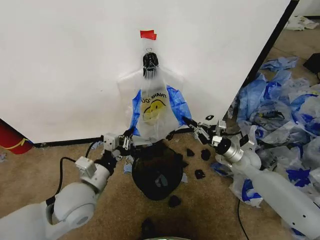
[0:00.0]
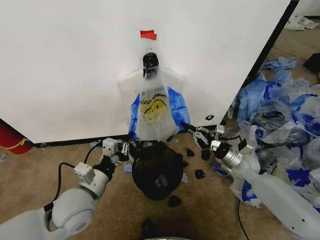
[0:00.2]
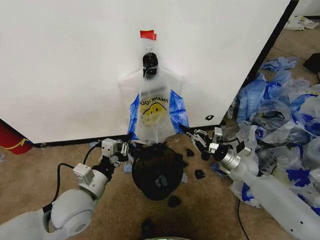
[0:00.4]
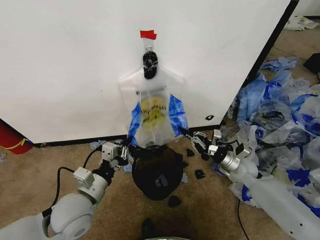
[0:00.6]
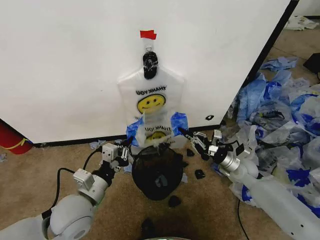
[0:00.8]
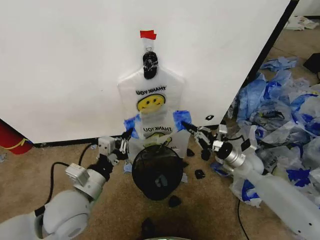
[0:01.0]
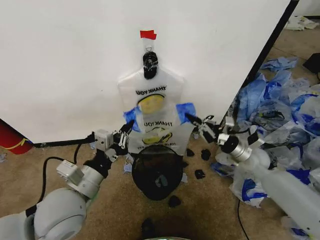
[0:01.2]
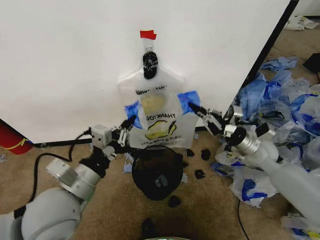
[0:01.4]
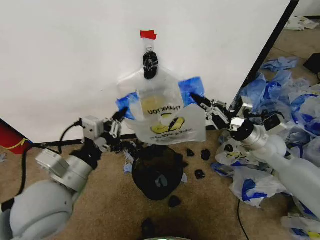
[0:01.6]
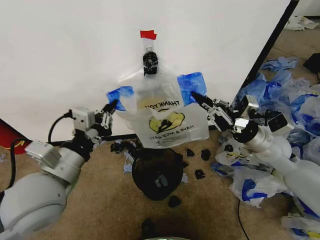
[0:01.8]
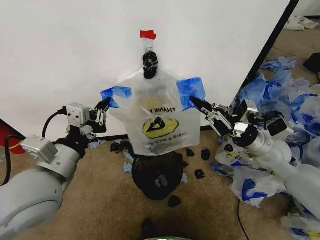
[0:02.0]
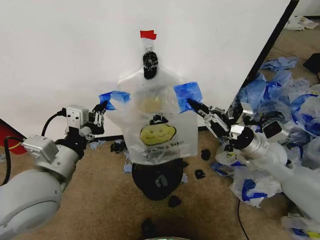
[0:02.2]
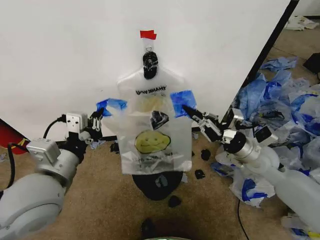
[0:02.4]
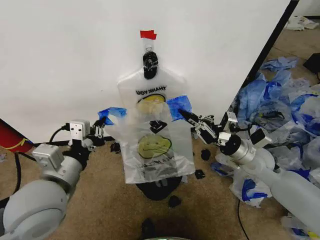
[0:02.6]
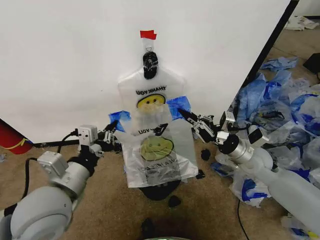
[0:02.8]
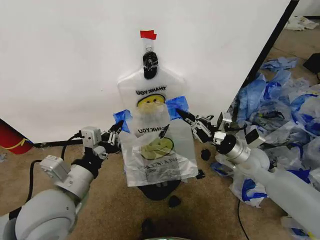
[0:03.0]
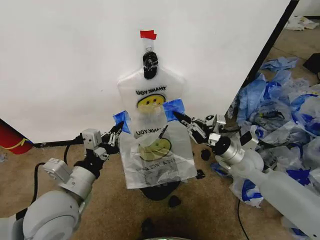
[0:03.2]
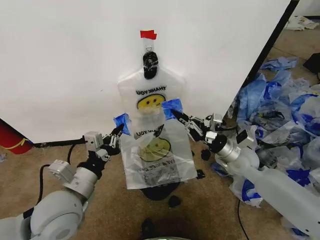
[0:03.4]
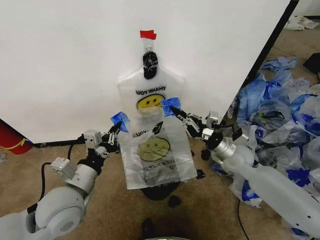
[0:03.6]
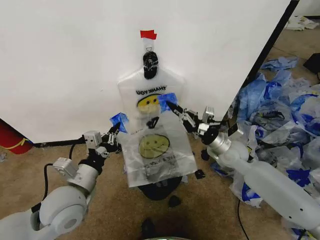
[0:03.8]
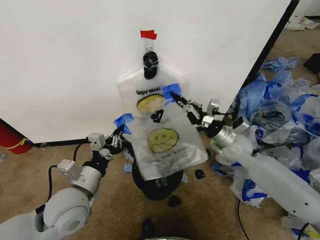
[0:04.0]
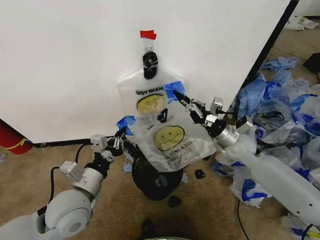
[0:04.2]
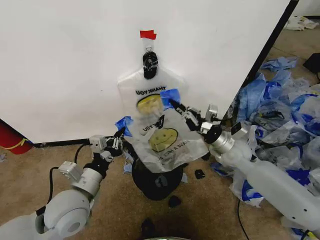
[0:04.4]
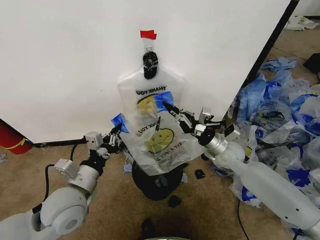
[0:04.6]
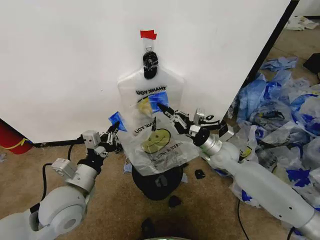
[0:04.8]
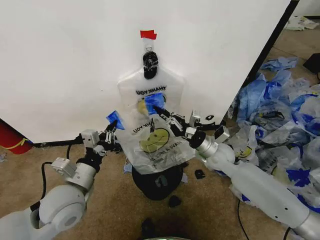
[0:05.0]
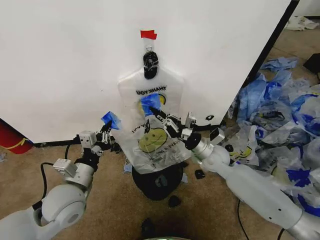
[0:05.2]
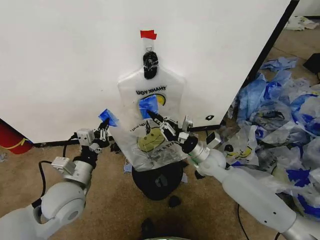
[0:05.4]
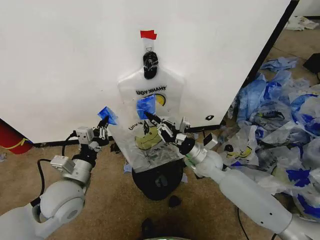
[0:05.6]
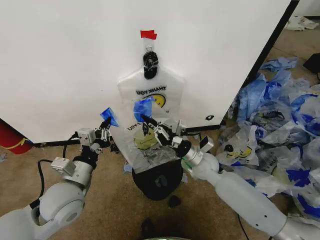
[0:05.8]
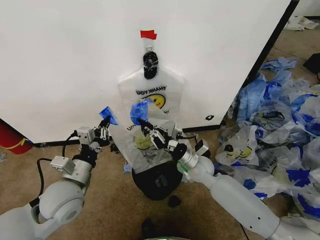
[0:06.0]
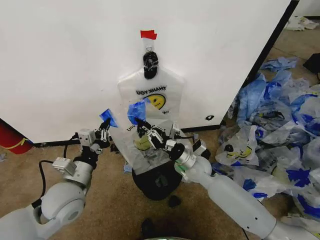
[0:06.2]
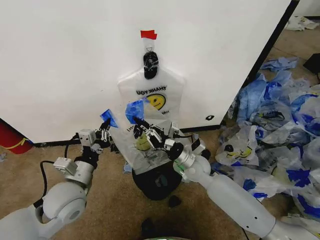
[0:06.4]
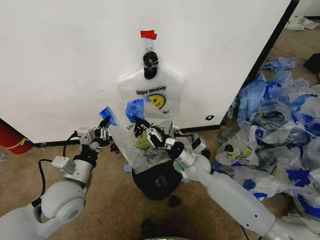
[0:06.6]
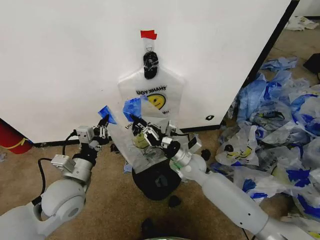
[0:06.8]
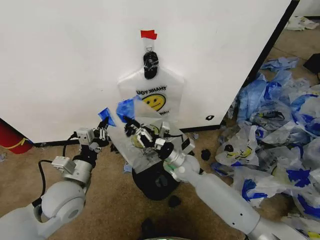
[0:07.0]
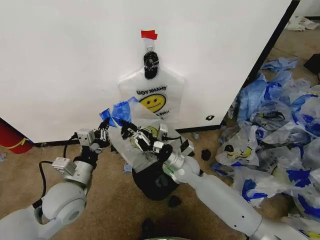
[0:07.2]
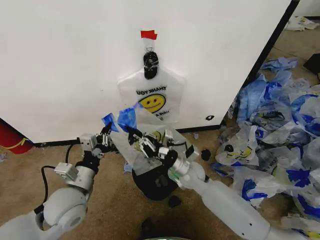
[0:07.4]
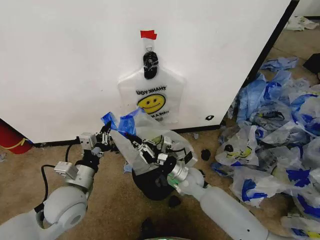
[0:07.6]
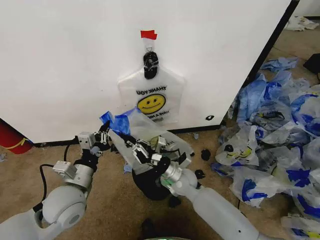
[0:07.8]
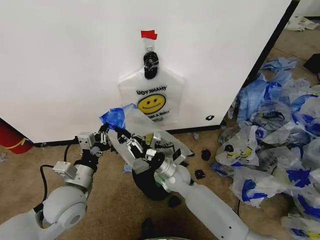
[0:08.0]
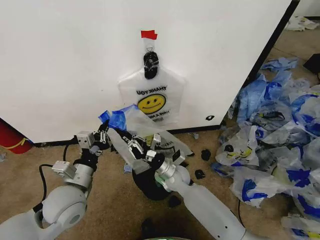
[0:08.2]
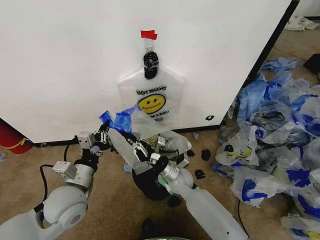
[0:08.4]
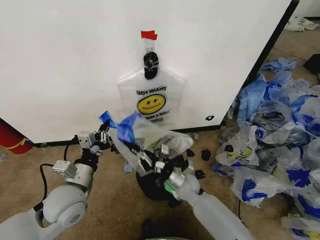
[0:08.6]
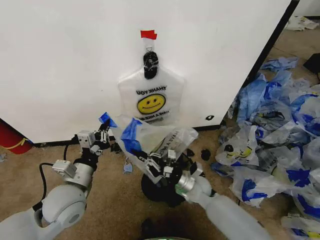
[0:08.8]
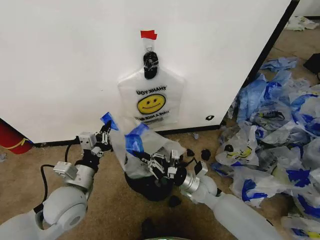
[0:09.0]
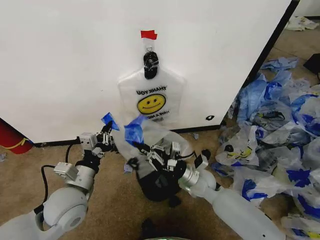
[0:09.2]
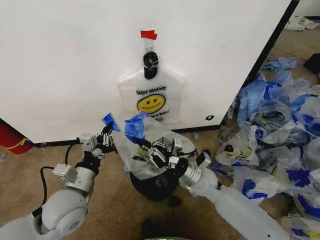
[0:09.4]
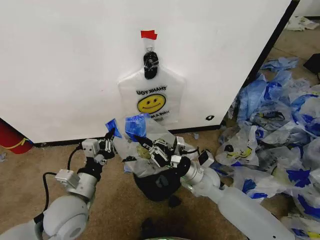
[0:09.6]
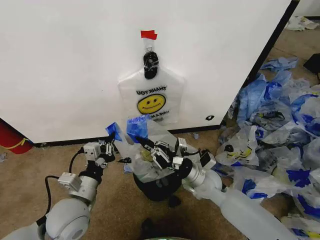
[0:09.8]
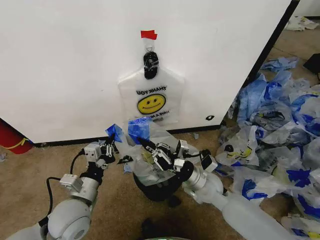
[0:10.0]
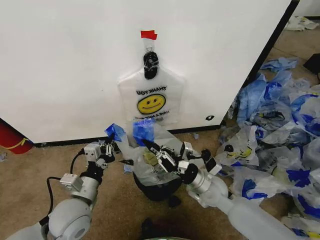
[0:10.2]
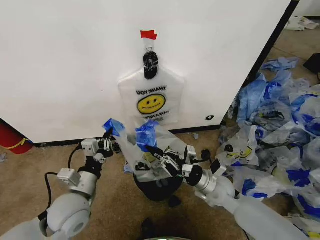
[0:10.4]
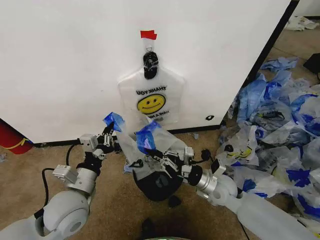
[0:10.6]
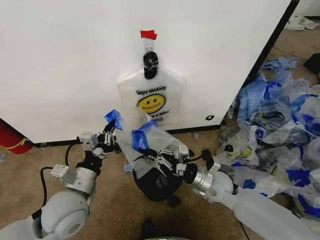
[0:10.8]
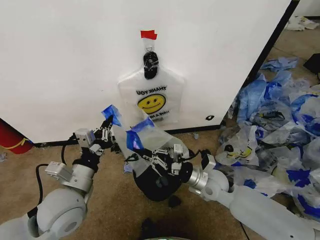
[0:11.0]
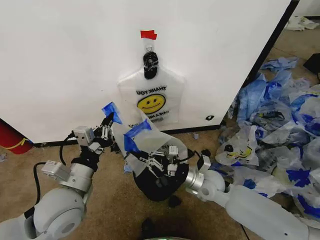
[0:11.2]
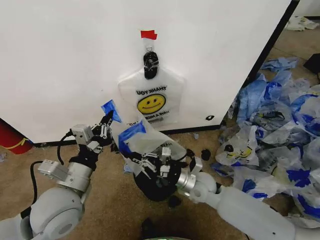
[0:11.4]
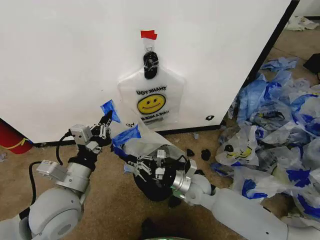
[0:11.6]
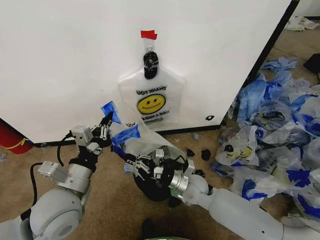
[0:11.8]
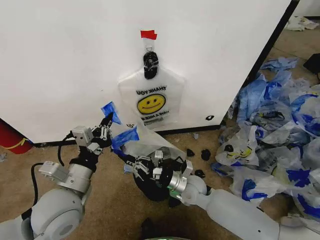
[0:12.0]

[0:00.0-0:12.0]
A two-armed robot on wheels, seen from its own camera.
Task of the whole recording: Pick up the garbage bag from the wall and place it over the trash bin.
0:00.0 to 0:01.6: The two grippers go some 10 cm upward.
0:01.6 to 0:03.0: The right gripper moves roughly 5 cm.
0:03.0 to 0:04.4: The left gripper heads downward, covering roughly 5 cm; the right gripper shifts by some 5 cm.
0:04.4 to 0:06.0: The right gripper travels to the left and downward by roughly 15 cm.
0:06.0 to 0:07.6: The right gripper changes place by approximately 5 cm.
0:07.6 to 0:09.0: The right gripper changes place by about 5 cm.
0:09.0 to 0:10.4: The right gripper changes place by some 5 cm.
0:10.4 to 0:12.0: The right gripper heads to the left, covering some 10 cm; the left gripper goes approximately 5 cm upward.

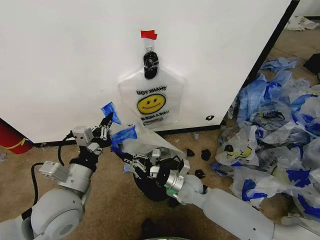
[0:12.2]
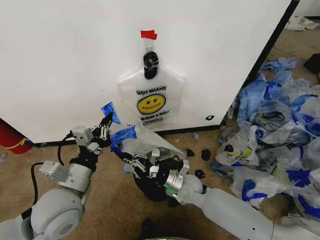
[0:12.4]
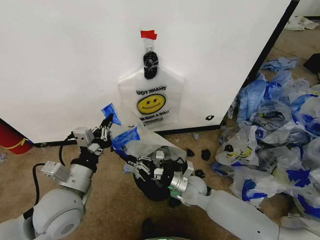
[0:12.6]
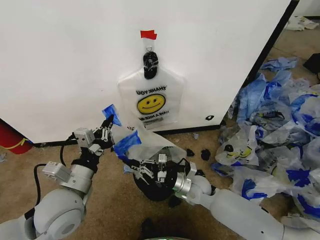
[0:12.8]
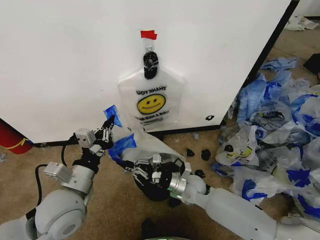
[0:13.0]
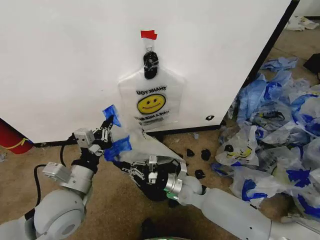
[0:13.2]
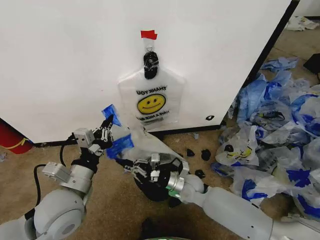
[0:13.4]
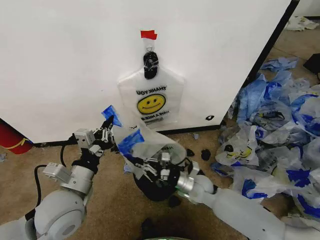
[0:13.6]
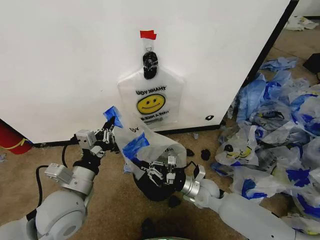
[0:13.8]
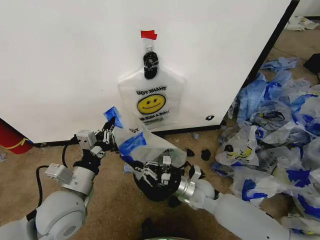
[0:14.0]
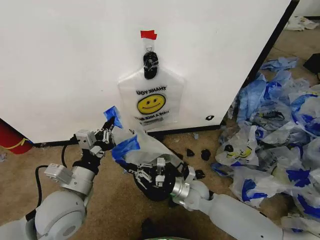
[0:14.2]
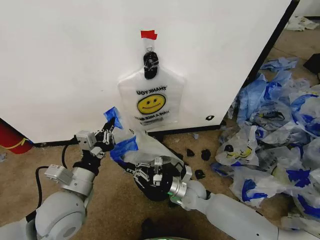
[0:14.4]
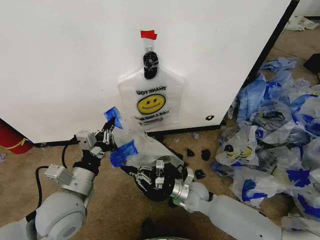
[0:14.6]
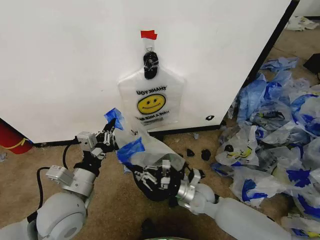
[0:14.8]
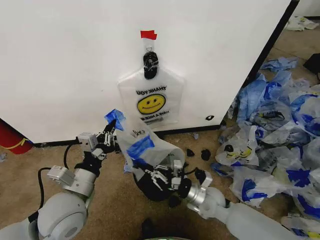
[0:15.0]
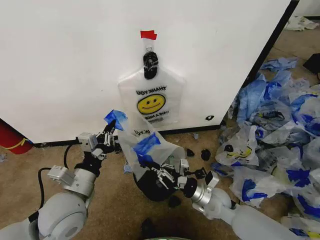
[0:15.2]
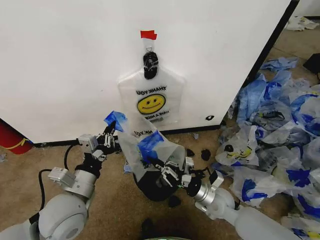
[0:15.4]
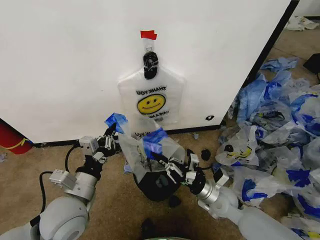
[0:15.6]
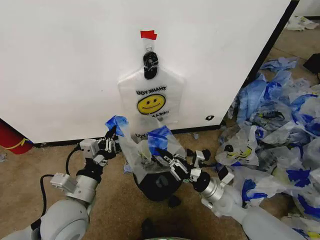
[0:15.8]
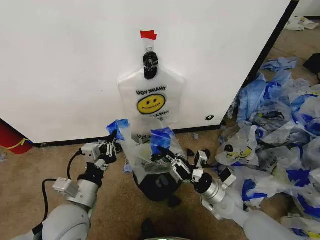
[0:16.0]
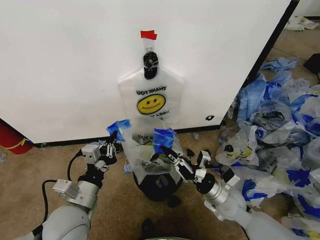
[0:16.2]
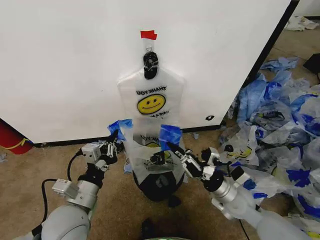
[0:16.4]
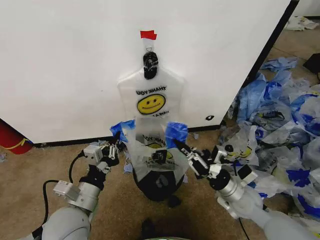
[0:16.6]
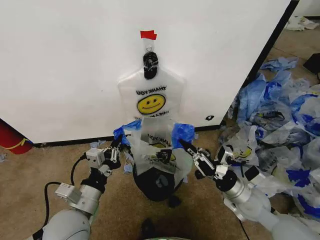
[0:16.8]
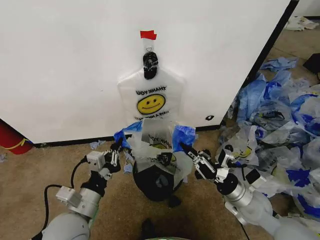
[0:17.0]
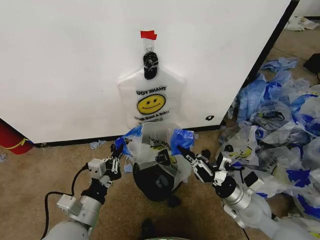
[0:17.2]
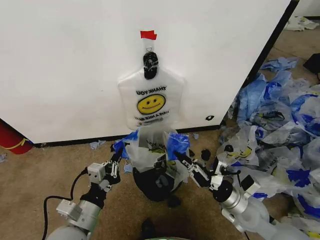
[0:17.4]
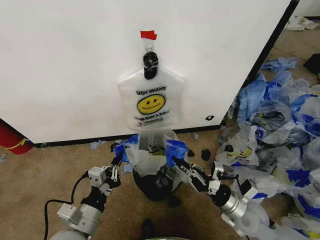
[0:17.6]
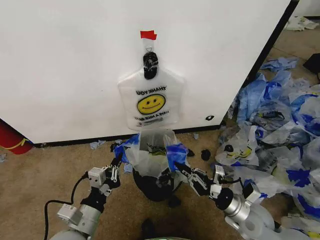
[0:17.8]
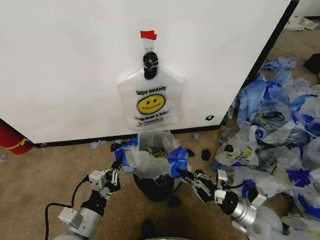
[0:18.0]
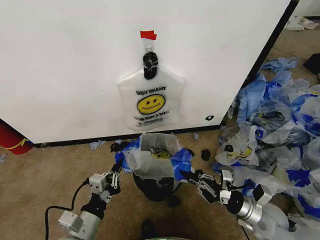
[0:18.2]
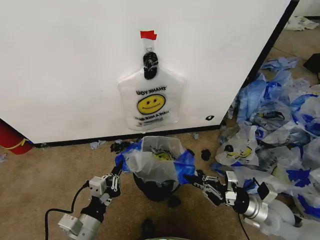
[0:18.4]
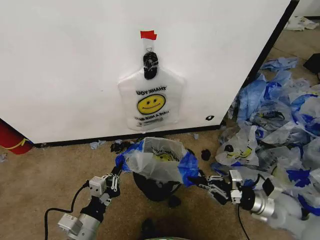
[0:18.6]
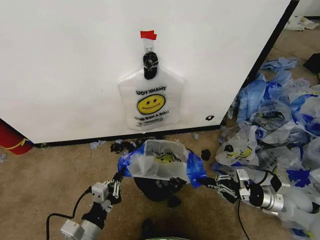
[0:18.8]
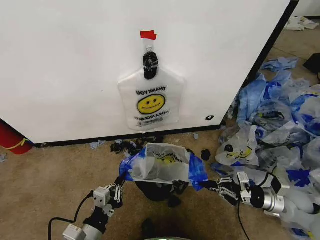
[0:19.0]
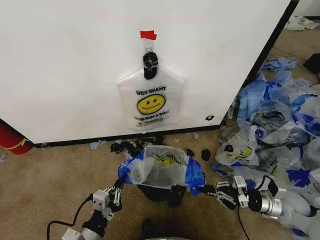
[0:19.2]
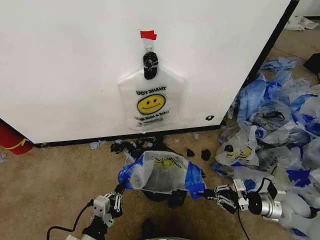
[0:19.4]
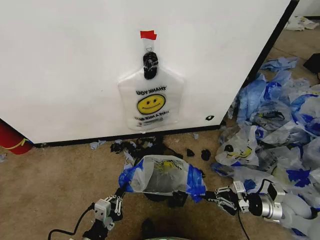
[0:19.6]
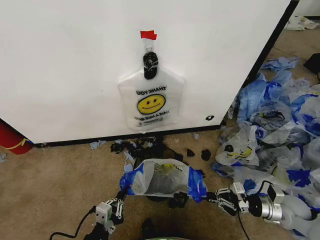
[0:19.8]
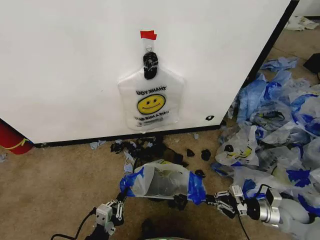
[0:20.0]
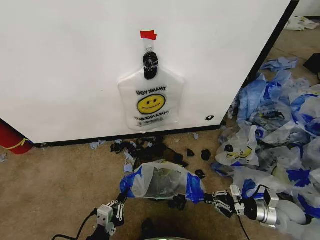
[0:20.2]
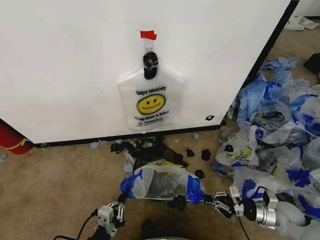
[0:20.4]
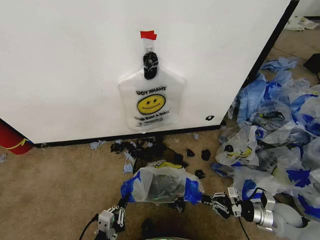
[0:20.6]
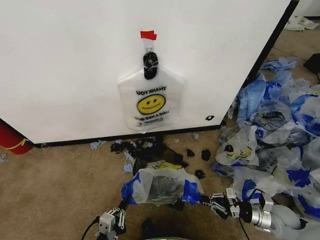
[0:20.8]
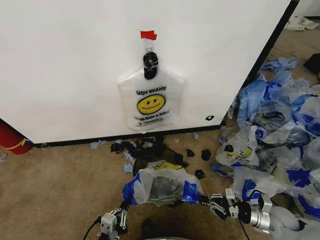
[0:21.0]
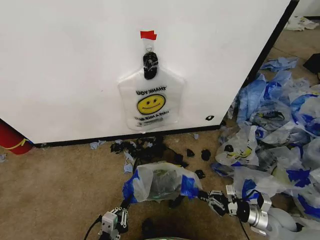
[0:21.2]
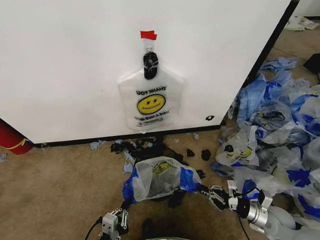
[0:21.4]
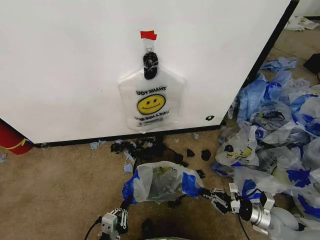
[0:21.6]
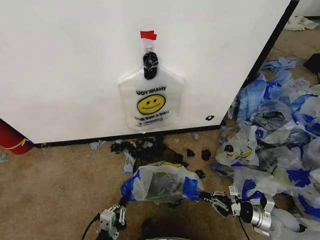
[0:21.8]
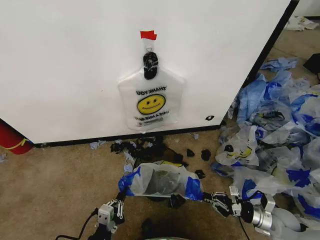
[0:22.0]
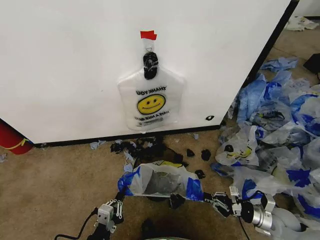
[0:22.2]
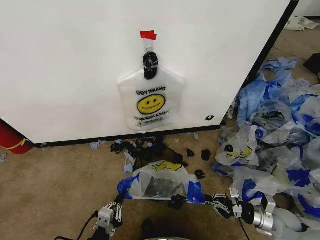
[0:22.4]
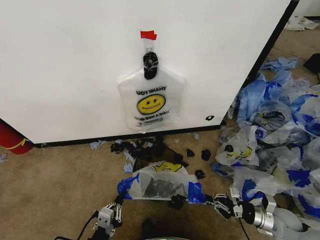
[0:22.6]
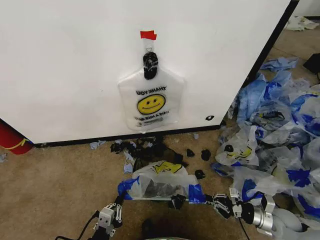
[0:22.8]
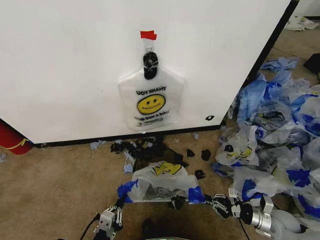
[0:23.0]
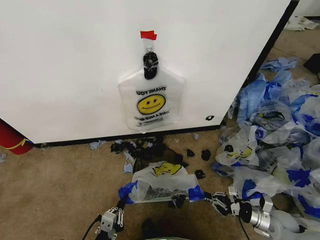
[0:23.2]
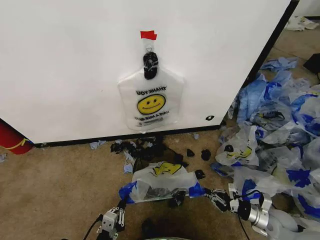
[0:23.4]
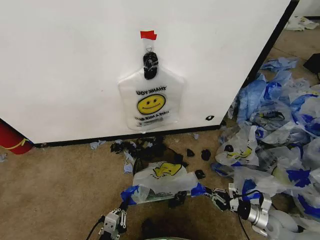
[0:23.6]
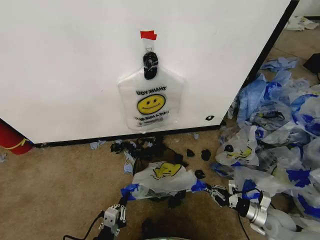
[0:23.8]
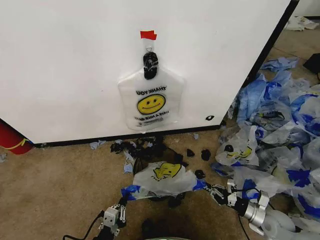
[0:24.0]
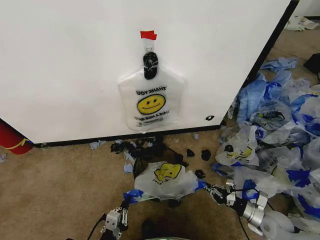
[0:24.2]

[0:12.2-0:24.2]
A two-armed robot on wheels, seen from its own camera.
Task of the whole recording: Pick up the garbage bag from the wall and place it over the trash bin.
0:12.2 to 0:13.8: The right gripper goes some 5 cm to the right.
0:13.8 to 0:15.2: The grippers stay close to where they were, moving slightly.
0:15.2 to 0:16.6: The right gripper heads upward and to the right, covering about 10 cm.
0:16.6 to 0:18.2: The left gripper moves downward and backward, approximately 10 cm, while the right gripper shifts about 5 cm to the right.
0:18.2 to 0:19.8: The left gripper moves backward and downward, approximately 10 cm. The right gripper moves to the right, about 10 cm.
0:19.8 to 0:21.2: The right gripper goes roughly 5 cm downward.
0:21.2 to 0:22.6: The grippers make only small movements.
